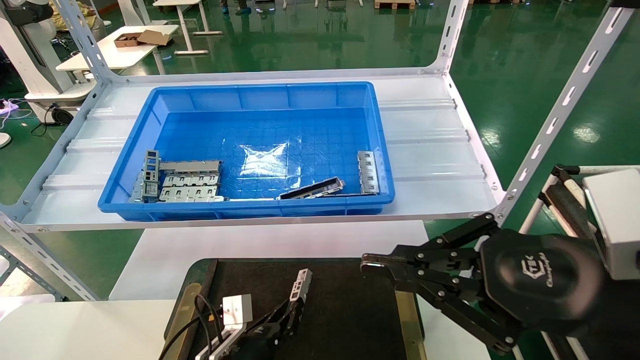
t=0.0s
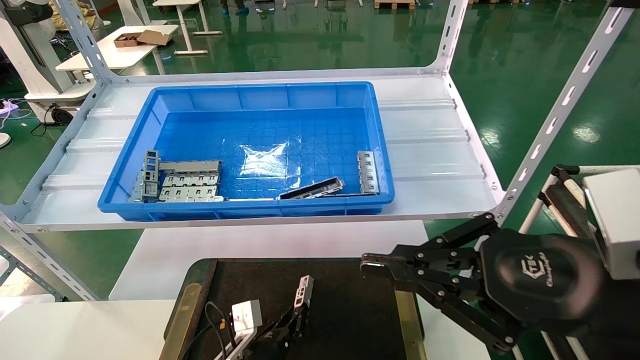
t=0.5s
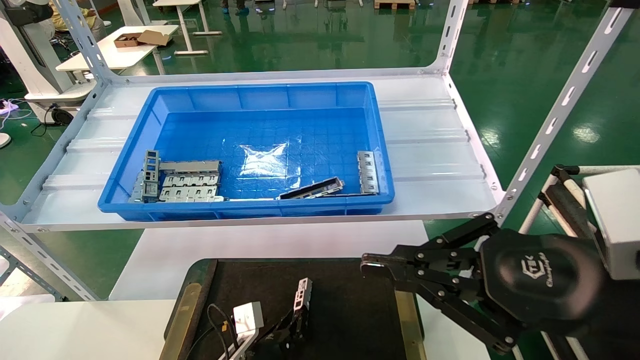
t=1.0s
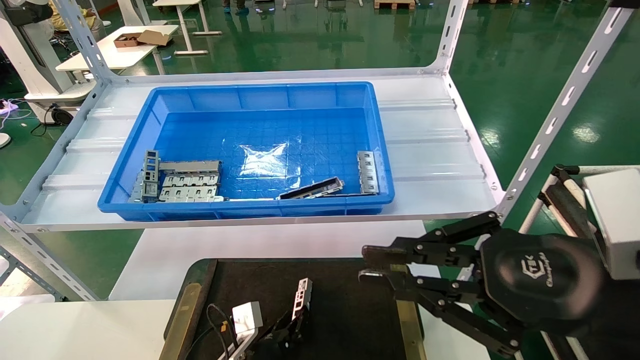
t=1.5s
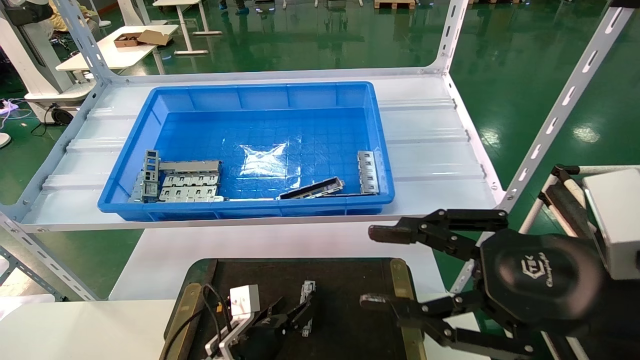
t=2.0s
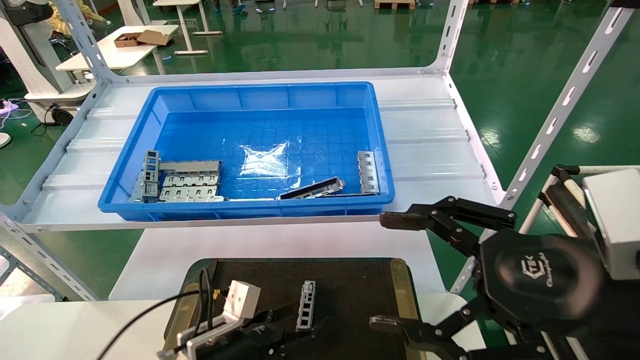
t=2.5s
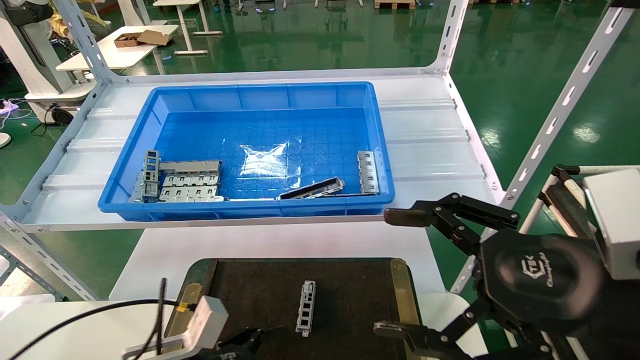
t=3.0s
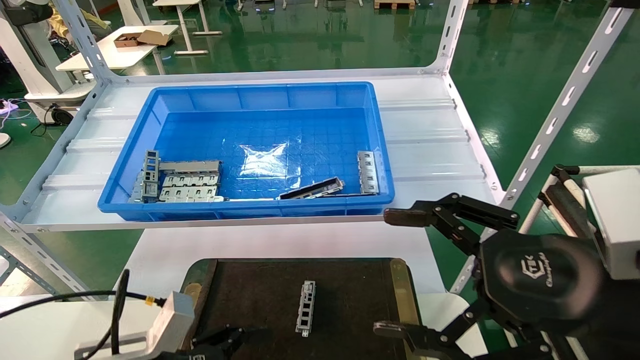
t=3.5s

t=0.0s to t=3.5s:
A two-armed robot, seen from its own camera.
Task of the whole recording: Grasp the part with one hand and place it on the black container.
t=0.0s to t=2.0s: The left gripper opens its fingers. The right gripper opens up.
t=2.0s to t=3.5s: The right gripper opens its fingers; the left gripper is displaced backward, upward and to the left by some 20 cm, and opens its fingers.
